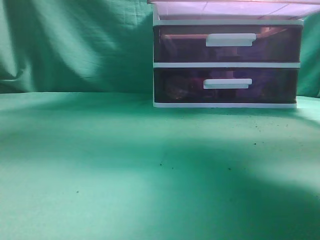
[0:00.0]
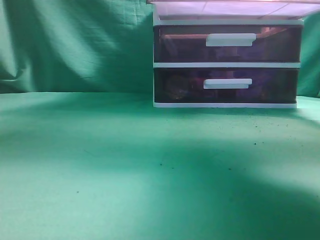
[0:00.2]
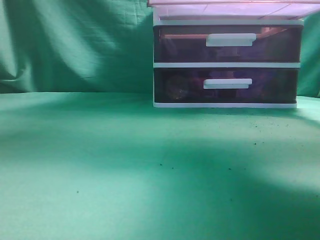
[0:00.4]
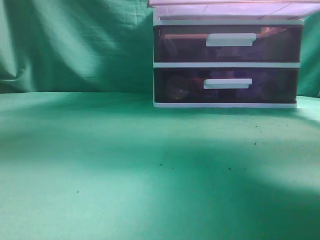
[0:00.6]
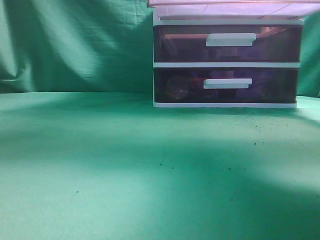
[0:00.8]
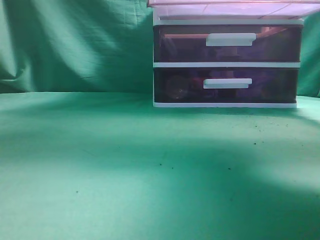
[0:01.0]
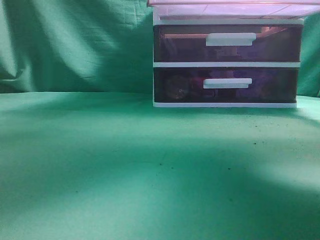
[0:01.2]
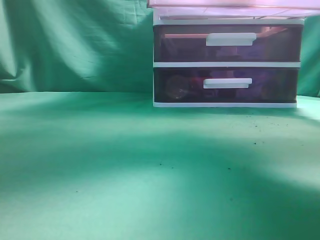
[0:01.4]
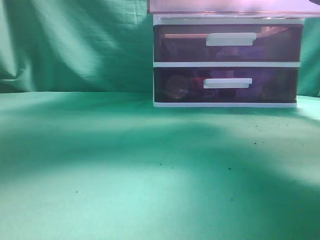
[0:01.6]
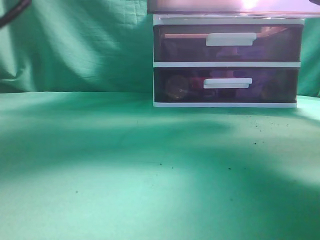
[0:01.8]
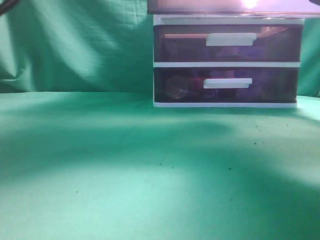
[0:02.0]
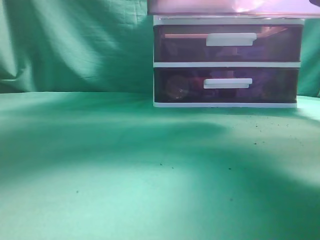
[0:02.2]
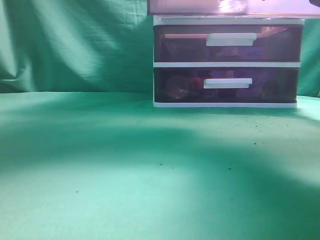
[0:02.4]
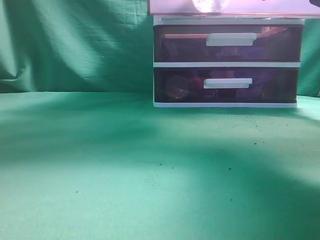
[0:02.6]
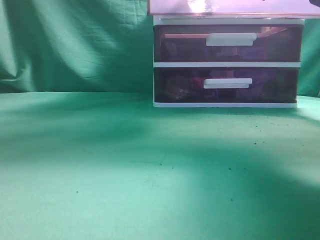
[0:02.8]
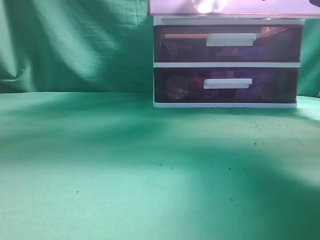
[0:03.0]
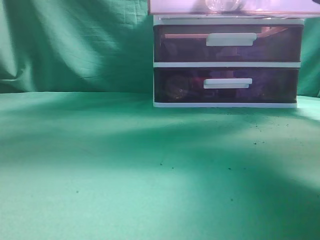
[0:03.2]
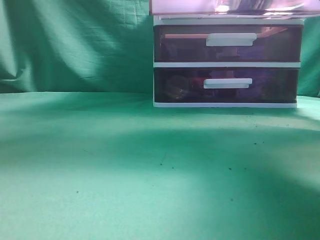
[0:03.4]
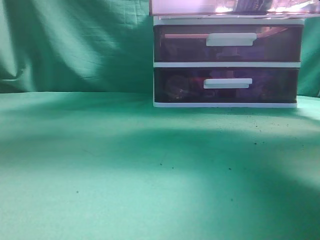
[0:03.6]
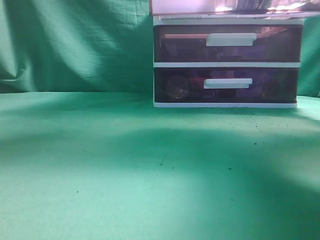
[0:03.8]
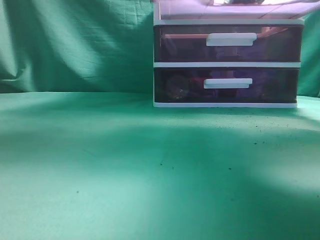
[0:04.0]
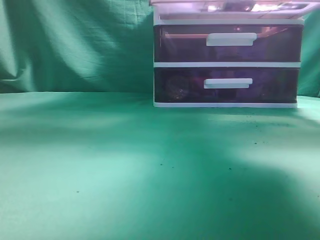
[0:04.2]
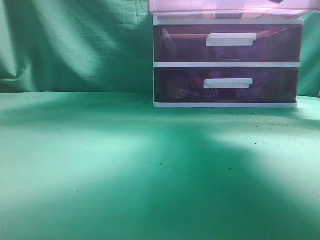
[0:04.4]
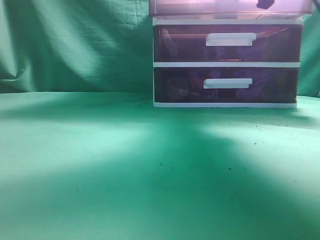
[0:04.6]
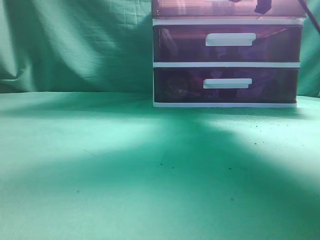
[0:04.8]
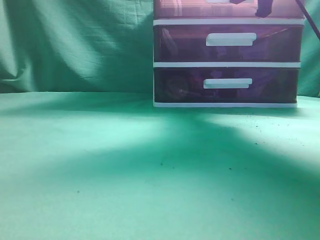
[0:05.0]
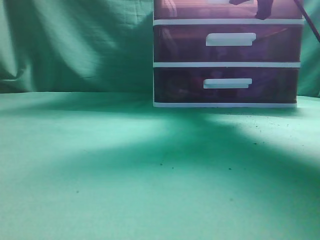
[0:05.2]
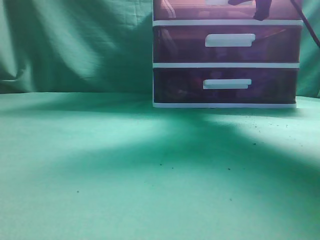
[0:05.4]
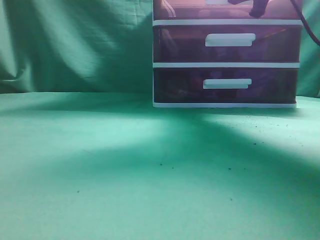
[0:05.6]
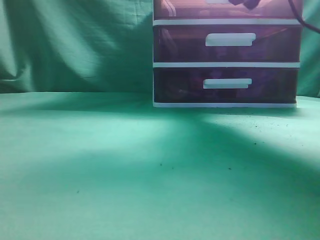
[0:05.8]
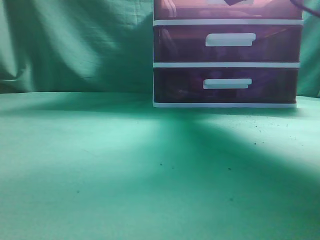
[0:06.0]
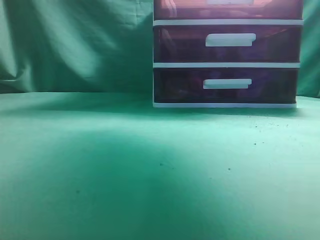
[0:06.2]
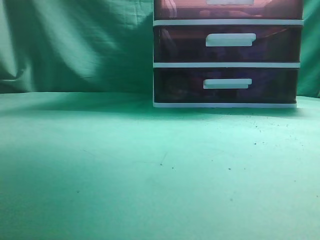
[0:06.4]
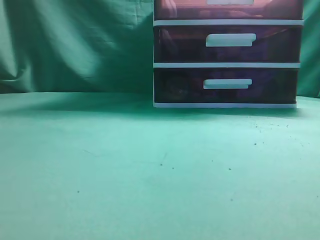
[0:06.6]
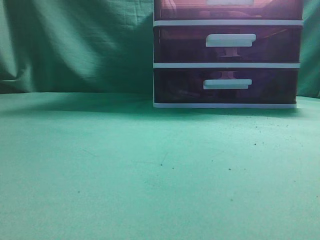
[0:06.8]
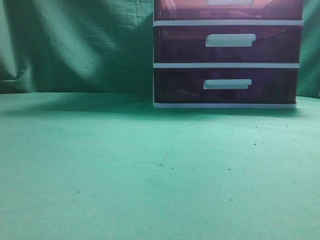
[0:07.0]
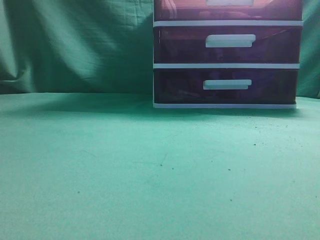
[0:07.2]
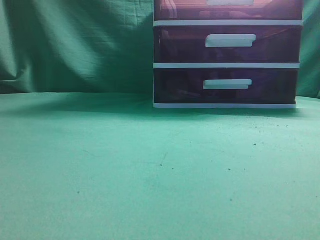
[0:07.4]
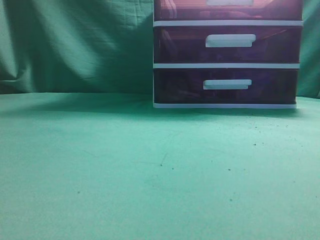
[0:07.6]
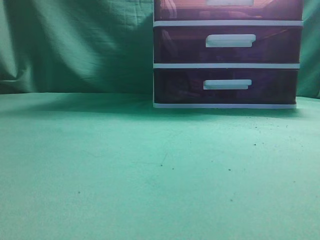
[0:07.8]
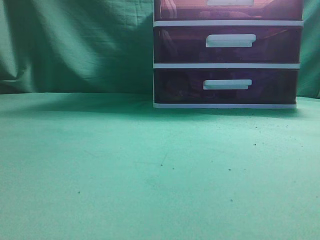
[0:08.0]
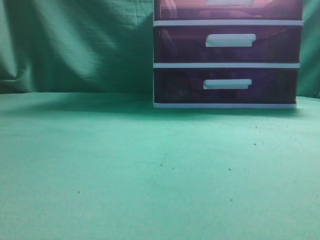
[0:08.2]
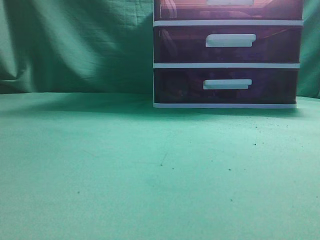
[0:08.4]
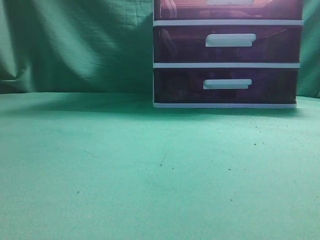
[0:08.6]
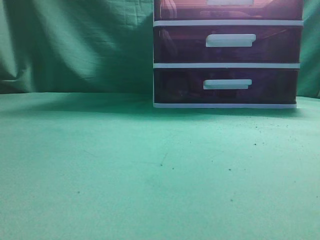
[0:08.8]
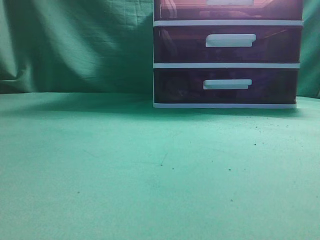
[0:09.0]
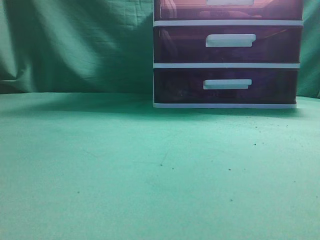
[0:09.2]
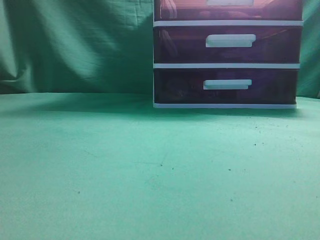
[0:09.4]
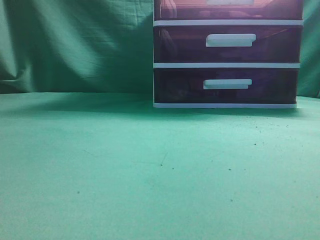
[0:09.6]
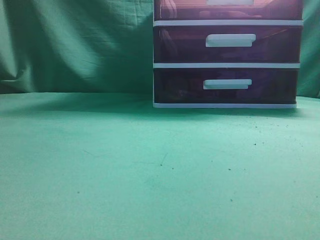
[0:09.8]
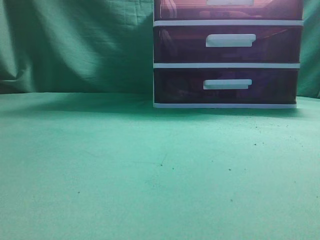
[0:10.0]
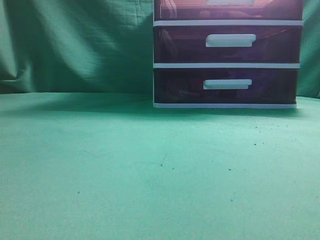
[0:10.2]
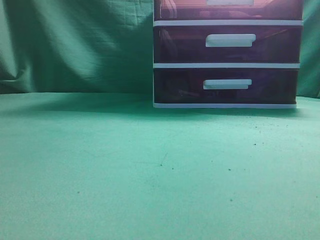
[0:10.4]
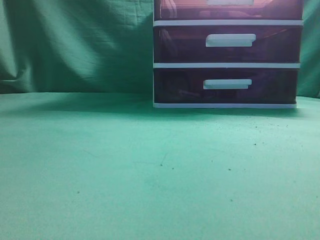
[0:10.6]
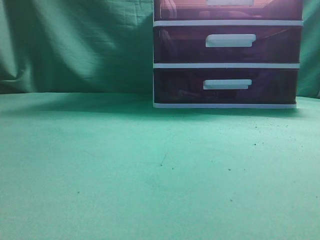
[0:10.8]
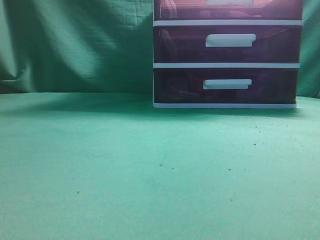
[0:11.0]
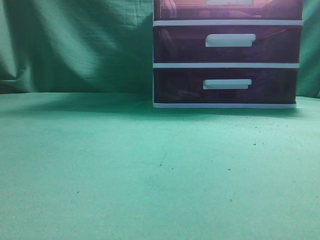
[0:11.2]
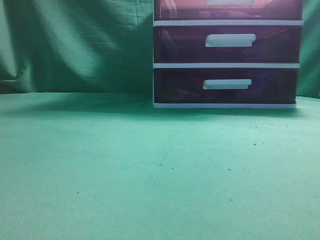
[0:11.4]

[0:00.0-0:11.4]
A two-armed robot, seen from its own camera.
Task of the whole recording: place the water bottle into the drawer.
Step, 0:00.4 to 0:03.4: Place the water bottle inside the drawer.
Step, 0:03.6 to 0:05.8: Close the drawer.
0:00.0 to 0:01.4: The left gripper shifts roughly 30 cm to the right and forward.
0:01.4 to 0:02.8: The grippers make only small movements.
0:02.8 to 0:04.2: The left gripper heads to the left, covering about 10 cm, and closes; the right gripper changes place by approximately 5 cm.
0:04.2 to 0:05.6: The right gripper moves forward, roughly 10 cm; the left gripper shifts some 20 cm backward.
0:05.6 to 0:07.2: The right gripper travels backward and upward by roughly 35 cm, and opens, then closes again. The left gripper travels backward by some 15 cm.
0:07.2 to 0:08.6: The right gripper shifts approximately 20 cm downward and backward.
